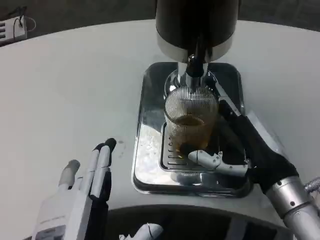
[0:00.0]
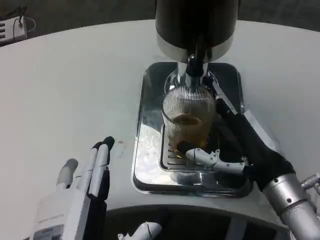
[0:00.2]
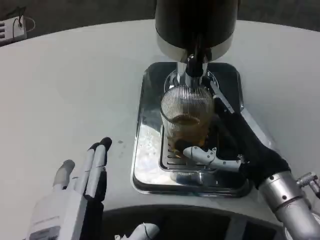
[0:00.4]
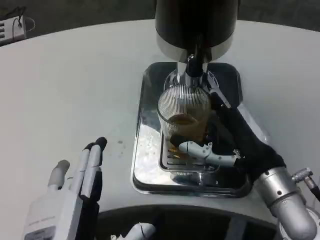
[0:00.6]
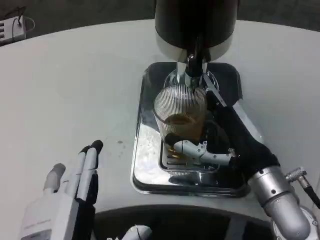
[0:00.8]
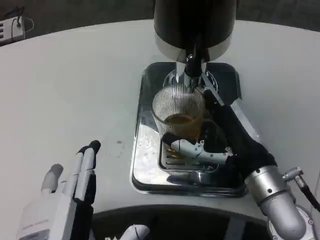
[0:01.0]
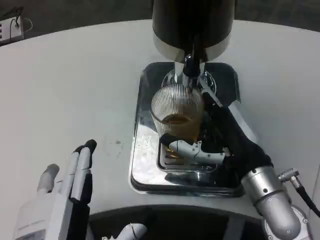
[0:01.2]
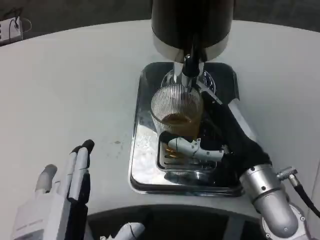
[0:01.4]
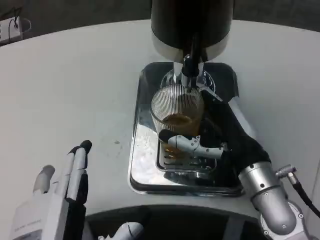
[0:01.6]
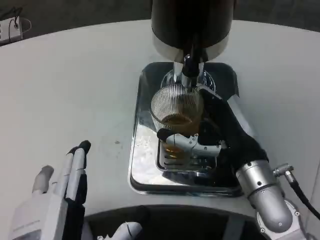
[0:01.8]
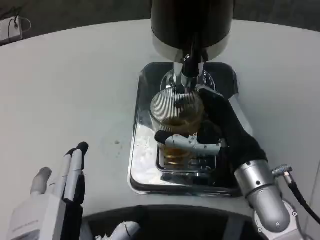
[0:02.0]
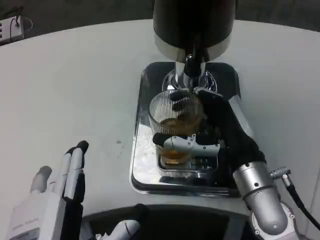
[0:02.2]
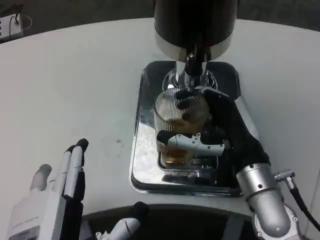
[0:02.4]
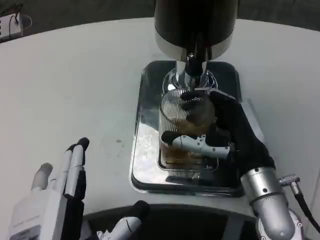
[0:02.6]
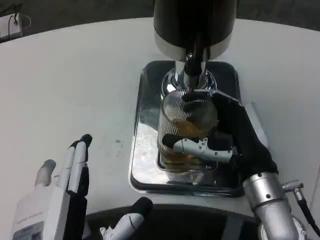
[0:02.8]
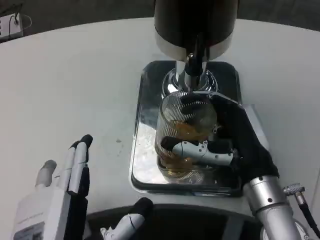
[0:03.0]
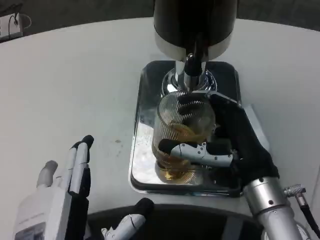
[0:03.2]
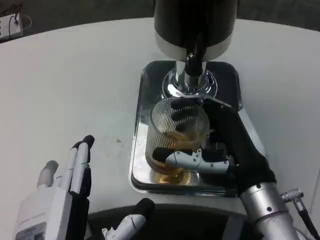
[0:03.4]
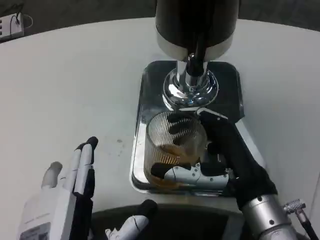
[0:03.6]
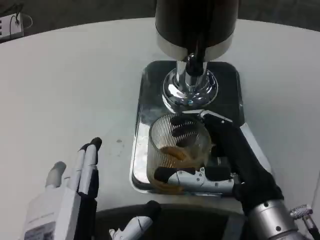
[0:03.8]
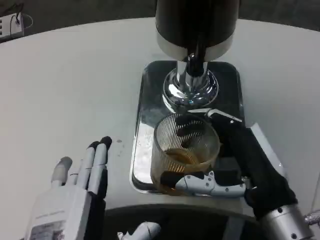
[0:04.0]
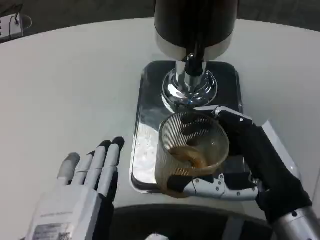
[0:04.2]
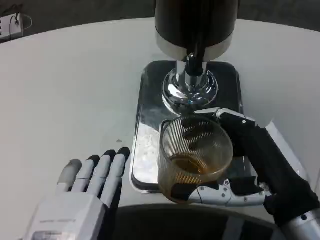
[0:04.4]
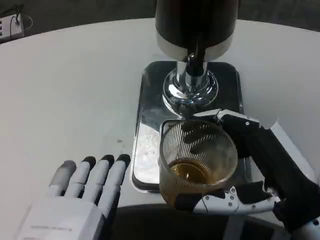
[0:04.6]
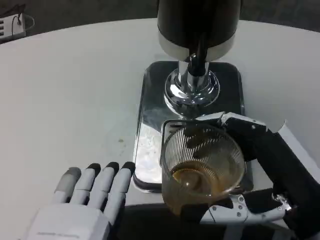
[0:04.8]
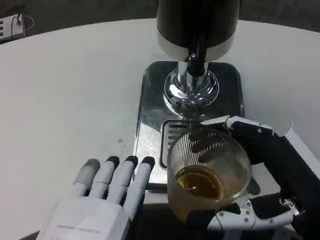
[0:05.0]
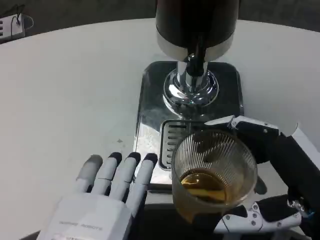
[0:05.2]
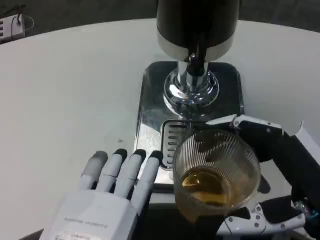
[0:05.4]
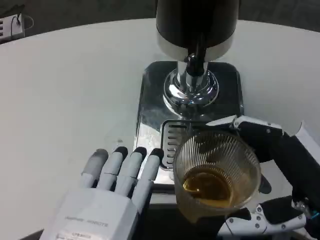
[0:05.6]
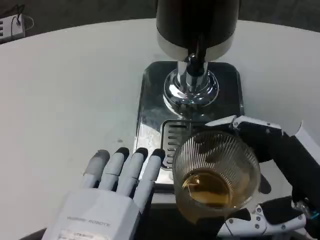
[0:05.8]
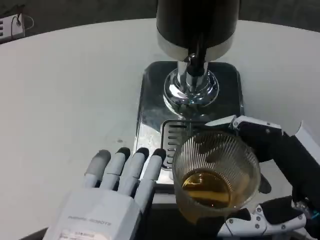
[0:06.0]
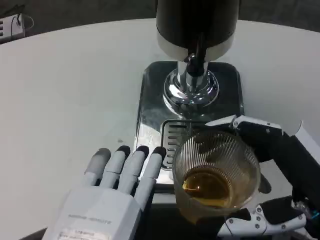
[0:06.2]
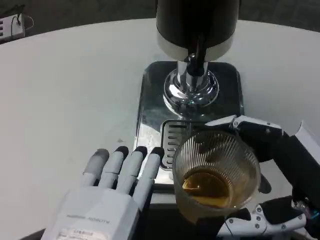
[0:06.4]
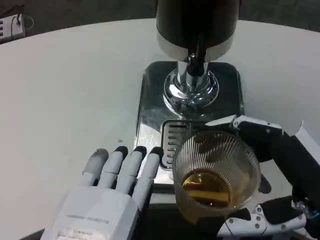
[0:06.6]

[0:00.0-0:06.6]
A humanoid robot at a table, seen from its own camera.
Task of the whole recording: Grasp the cup under the faucet to collect the drink, then remove the cup.
0:01.6 to 0:03.2: The hands make only small movements.
0:03.2 to 0:05.0: The right hand heads backward and to the right, covering approximately 10 cm, while the left hand is displaced backward by some 5 cm.
0:05.0 to 0:06.6: The hands stay close to where they were, moving slightly.

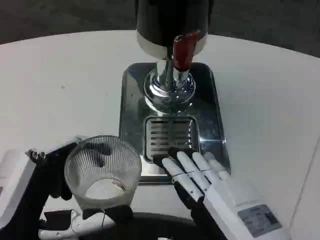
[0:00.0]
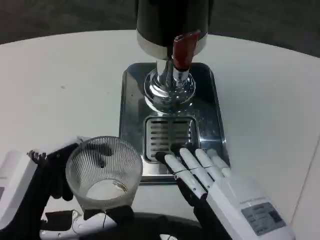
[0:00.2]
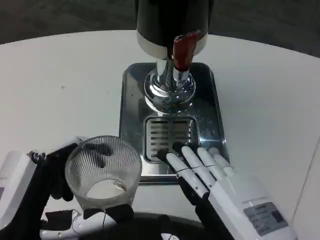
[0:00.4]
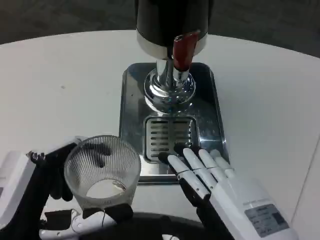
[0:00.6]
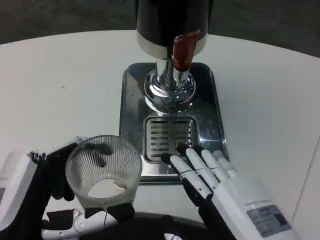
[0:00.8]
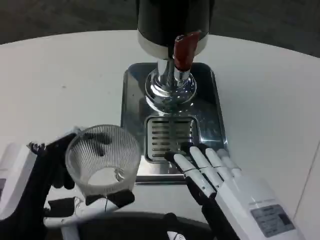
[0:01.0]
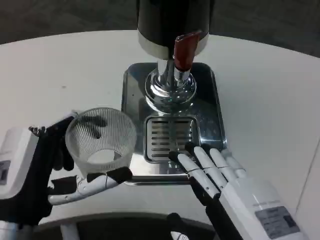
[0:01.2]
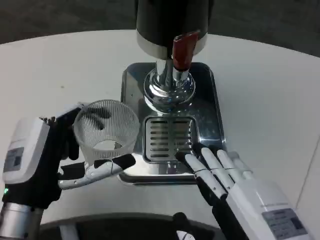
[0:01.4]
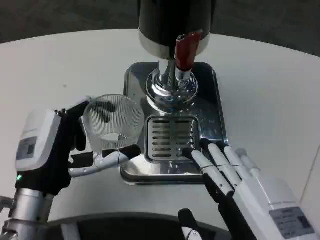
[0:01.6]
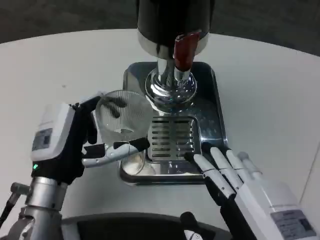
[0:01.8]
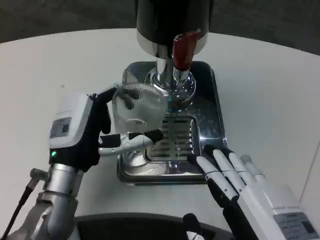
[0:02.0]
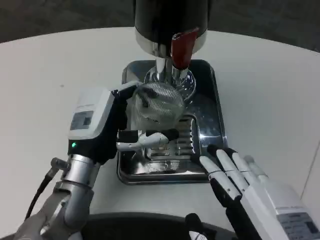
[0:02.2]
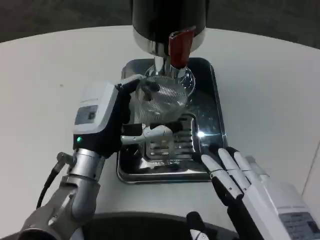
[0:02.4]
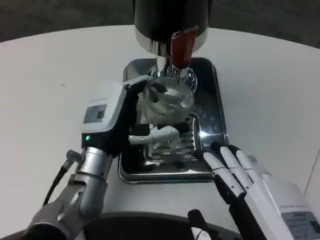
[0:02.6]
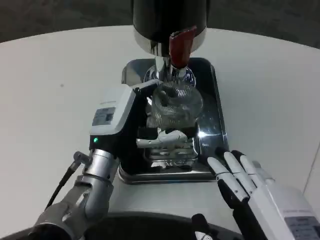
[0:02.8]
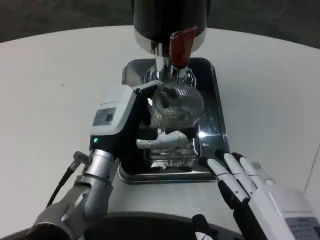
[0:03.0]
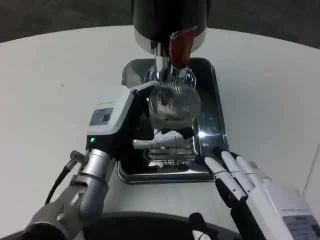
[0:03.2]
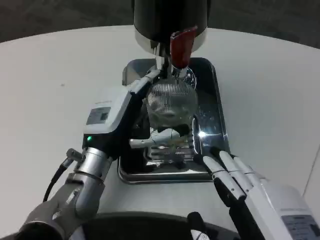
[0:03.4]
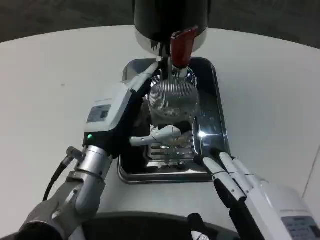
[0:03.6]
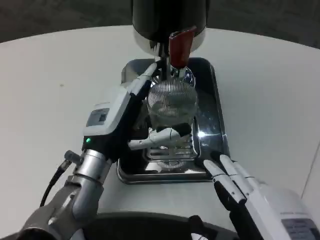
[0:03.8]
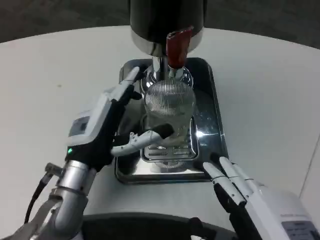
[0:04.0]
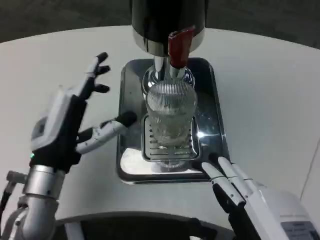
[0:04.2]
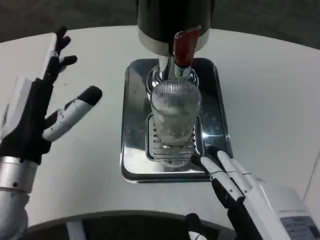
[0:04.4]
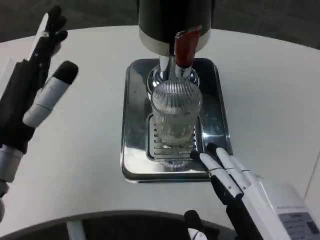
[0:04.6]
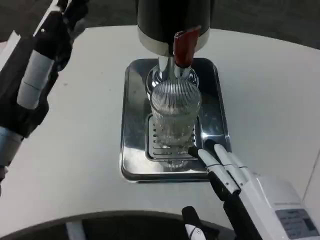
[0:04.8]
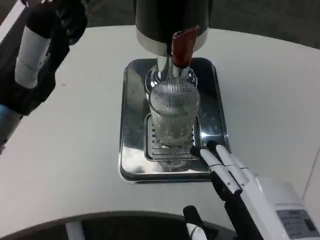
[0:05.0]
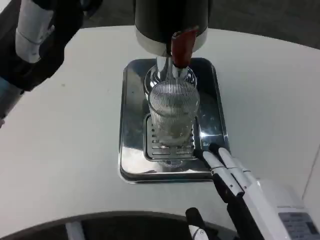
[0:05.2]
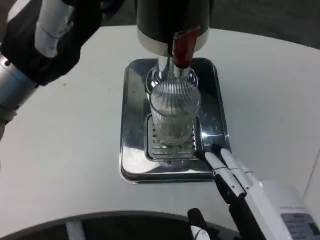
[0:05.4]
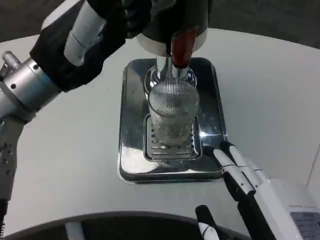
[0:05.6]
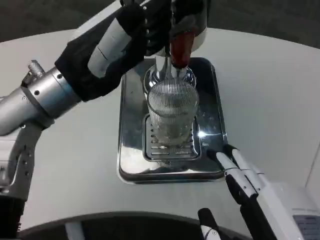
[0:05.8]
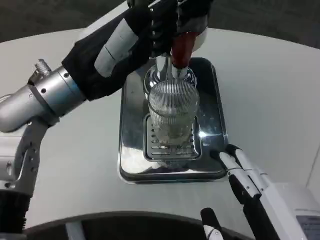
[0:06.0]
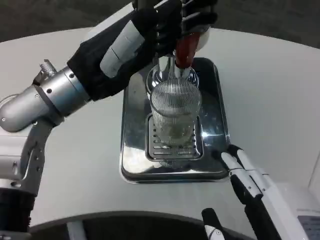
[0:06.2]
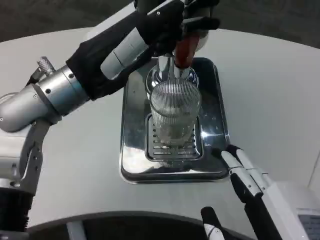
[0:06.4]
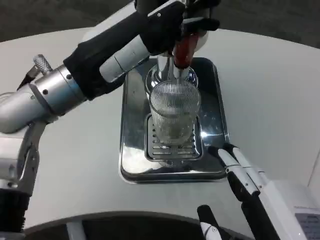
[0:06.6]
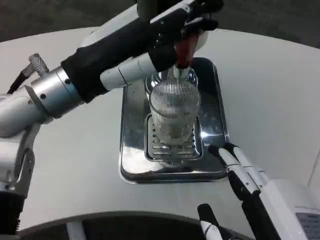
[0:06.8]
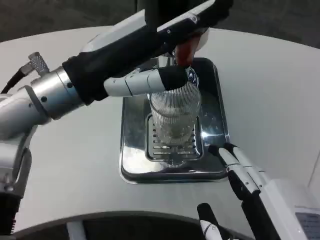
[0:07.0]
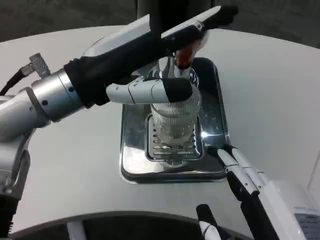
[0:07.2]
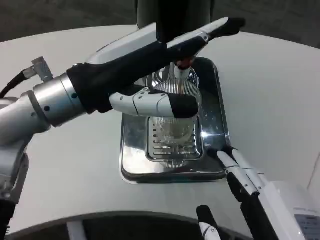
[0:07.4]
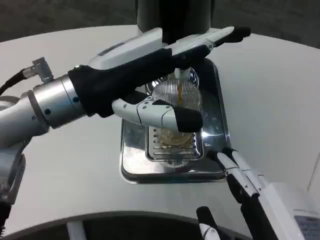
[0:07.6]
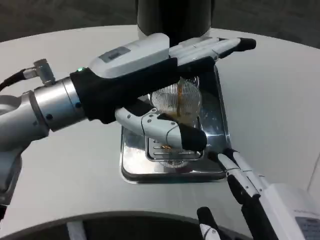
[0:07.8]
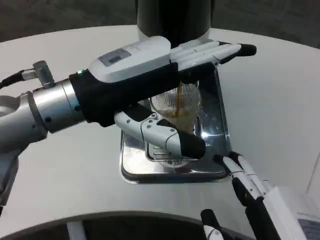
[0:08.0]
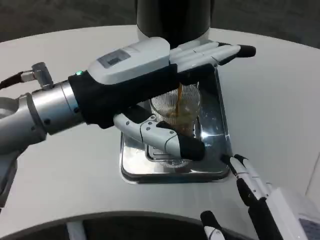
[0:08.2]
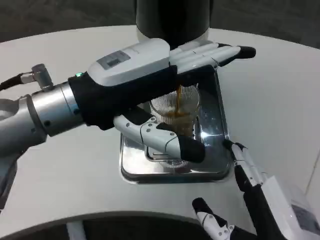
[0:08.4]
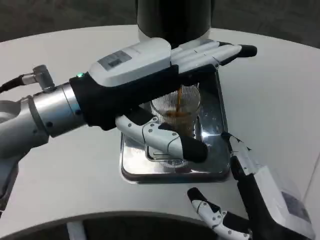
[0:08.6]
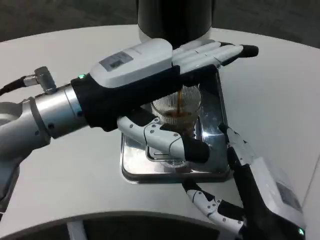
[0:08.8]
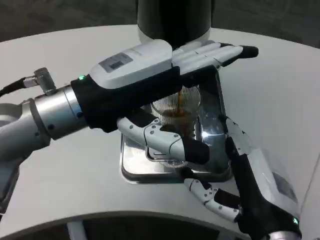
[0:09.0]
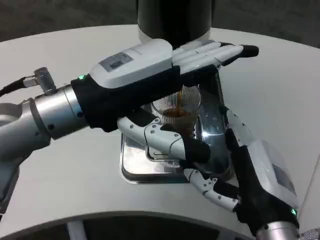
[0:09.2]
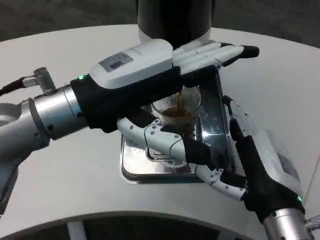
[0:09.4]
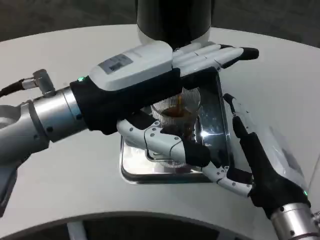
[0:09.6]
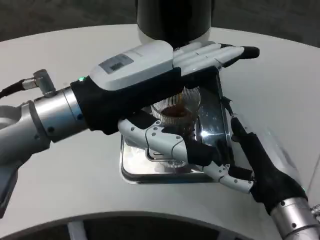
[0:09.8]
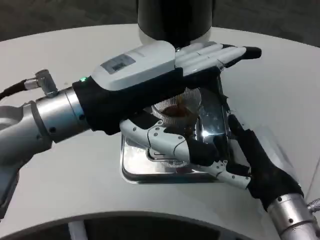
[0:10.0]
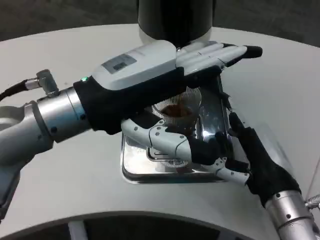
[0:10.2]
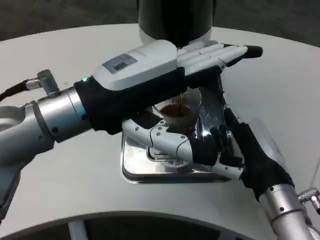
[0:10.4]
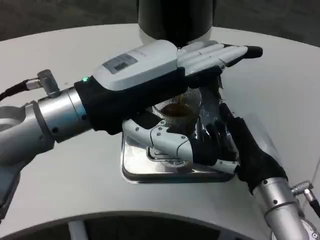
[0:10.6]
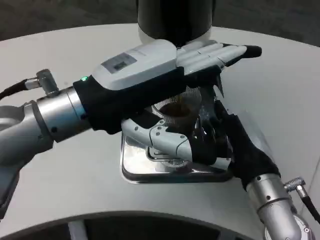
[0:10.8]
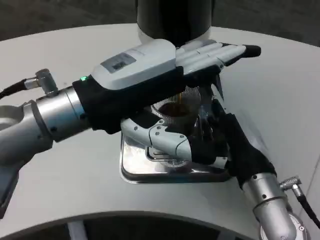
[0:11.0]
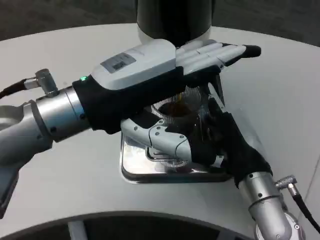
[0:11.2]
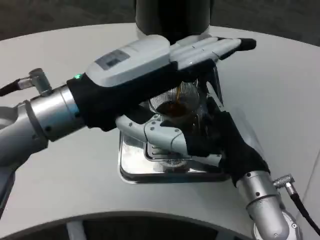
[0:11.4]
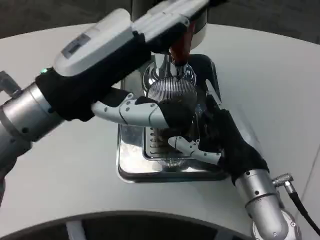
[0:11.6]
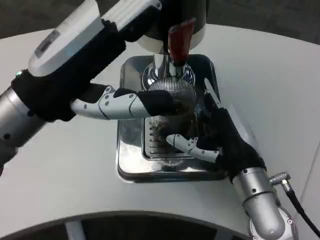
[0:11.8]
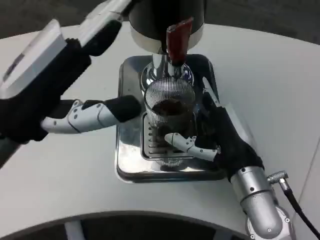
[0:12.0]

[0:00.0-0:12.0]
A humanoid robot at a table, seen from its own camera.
Task of the whole recording: Grasp the cup under the faucet to collect the drink, then remove the cup.
0:00.0 to 0:01.6: The left hand shifts some 10 cm forward.
0:01.6 to 0:03.0: The left hand shifts about 10 cm forward and to the right.
0:03.0 to 0:04.4: The left hand goes some 10 cm to the left and backward.
0:04.4 to 0:06.0: The left hand heads upward and forward, covering approximately 10 cm.
0:07.6 to 0:09.0: The right hand is displaced forward by roughly 10 cm.
0:09.0 to 0:10.4: The right hand moves forward, roughly 10 cm.
0:10.4 to 0:12.0: The left hand goes roughly 5 cm to the left.

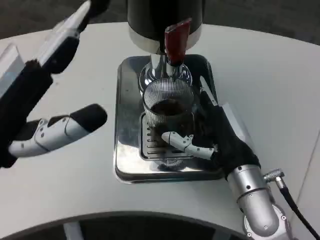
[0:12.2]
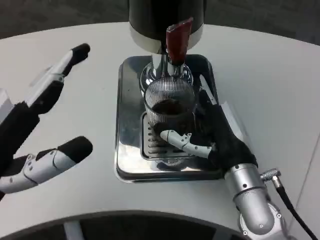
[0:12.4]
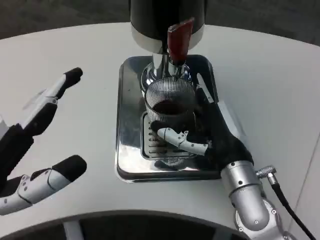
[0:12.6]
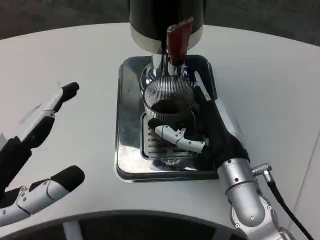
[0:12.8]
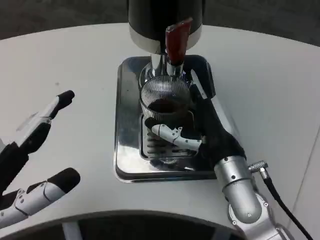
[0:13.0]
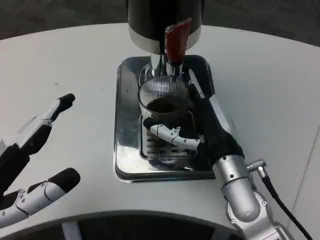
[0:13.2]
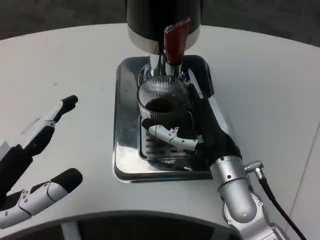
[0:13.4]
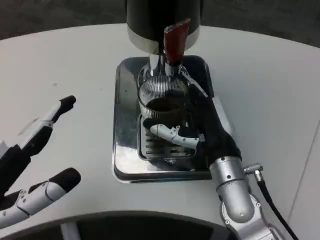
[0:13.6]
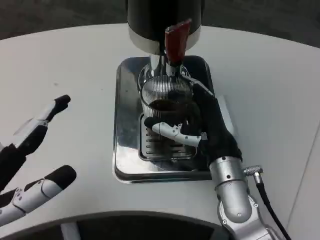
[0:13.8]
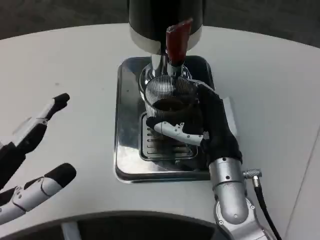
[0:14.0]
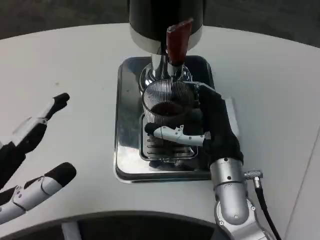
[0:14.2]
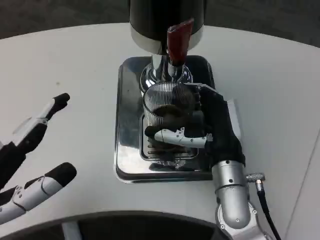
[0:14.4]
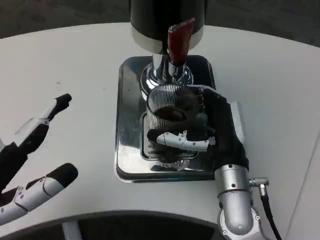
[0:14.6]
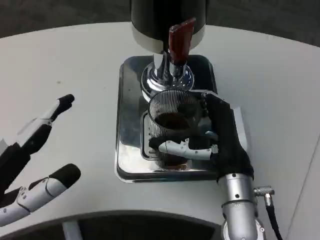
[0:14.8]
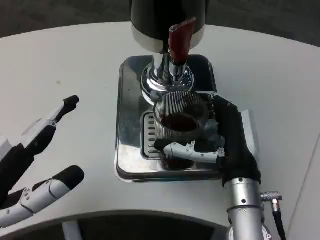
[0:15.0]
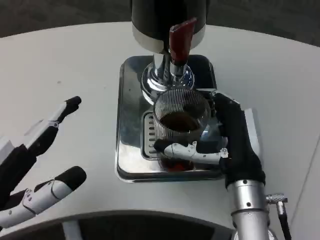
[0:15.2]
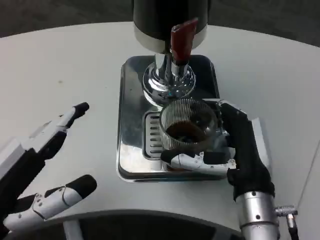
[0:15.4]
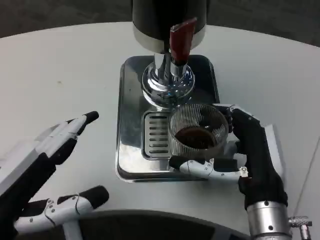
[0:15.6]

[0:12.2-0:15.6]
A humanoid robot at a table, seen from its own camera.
Task of the whole recording: Grasp the cup under the faucet to collect the drink, then remove the cup.
0:12.2 to 0:13.8: The left hand is displaced downward by approximately 5 cm.
0:13.8 to 0:15.6: The right hand heads backward, covering about 10 cm.
